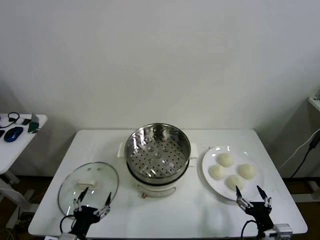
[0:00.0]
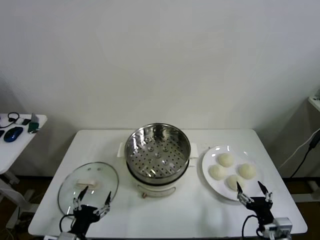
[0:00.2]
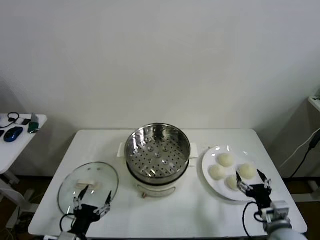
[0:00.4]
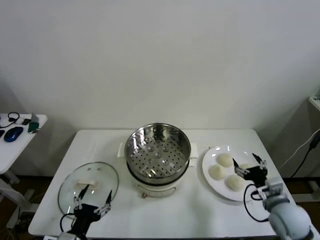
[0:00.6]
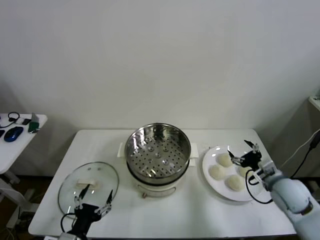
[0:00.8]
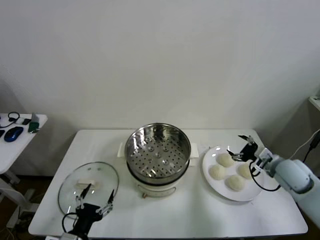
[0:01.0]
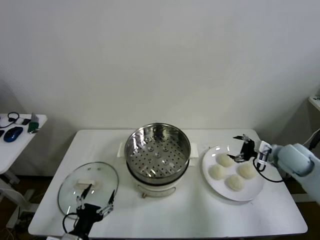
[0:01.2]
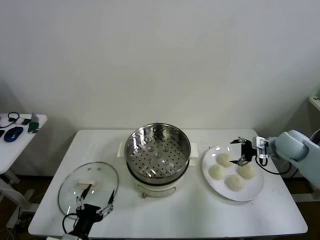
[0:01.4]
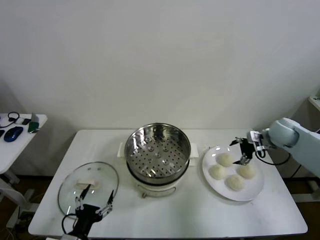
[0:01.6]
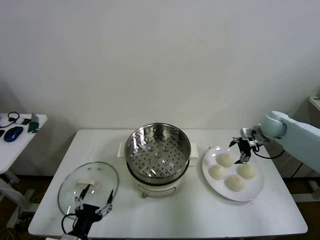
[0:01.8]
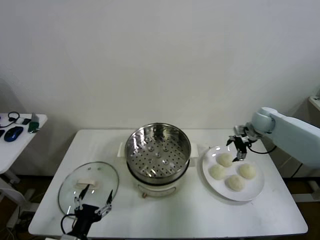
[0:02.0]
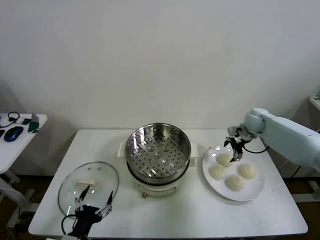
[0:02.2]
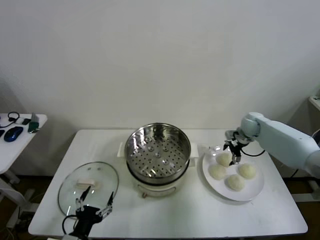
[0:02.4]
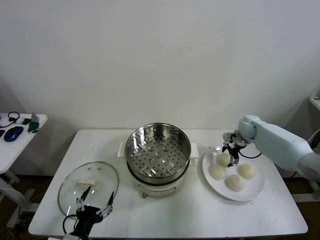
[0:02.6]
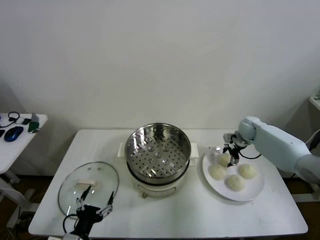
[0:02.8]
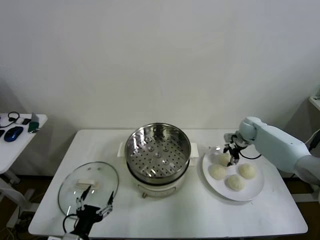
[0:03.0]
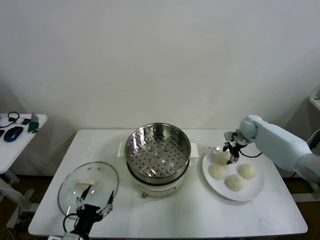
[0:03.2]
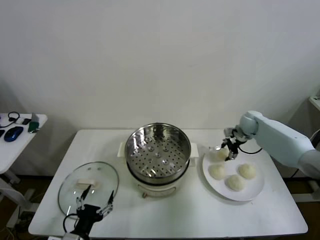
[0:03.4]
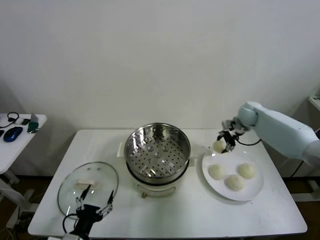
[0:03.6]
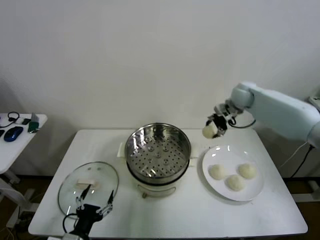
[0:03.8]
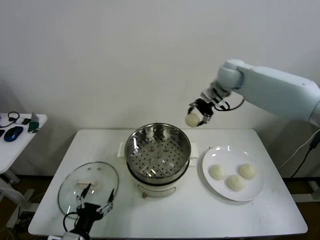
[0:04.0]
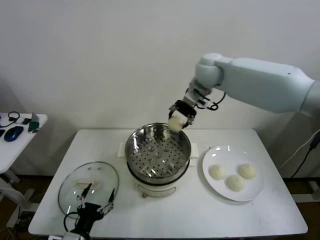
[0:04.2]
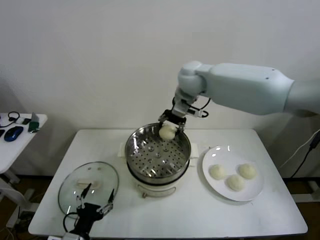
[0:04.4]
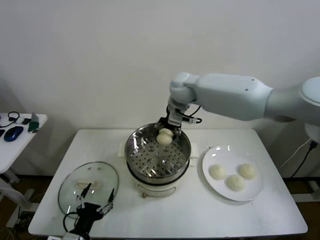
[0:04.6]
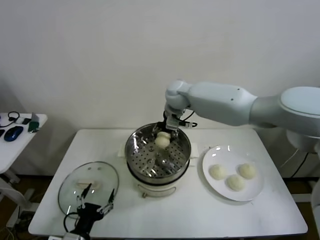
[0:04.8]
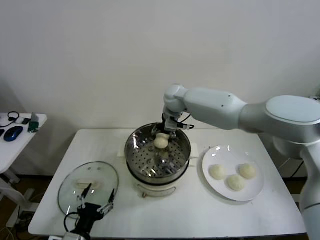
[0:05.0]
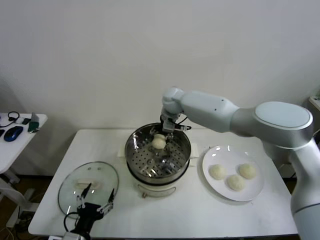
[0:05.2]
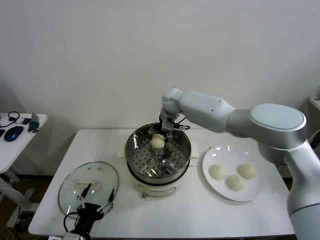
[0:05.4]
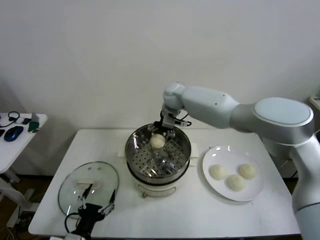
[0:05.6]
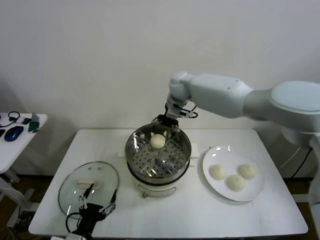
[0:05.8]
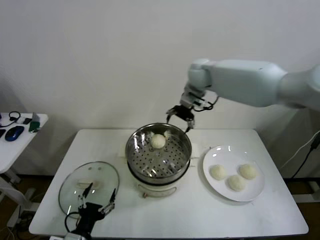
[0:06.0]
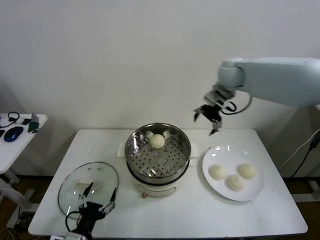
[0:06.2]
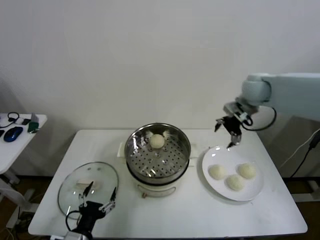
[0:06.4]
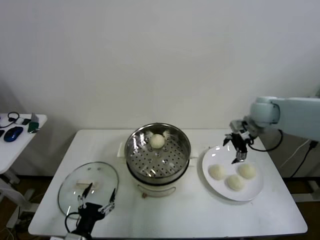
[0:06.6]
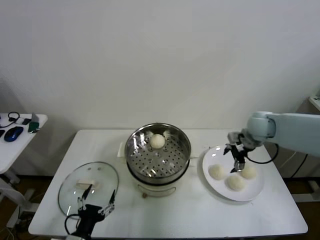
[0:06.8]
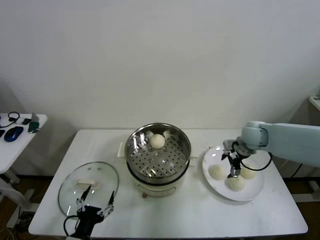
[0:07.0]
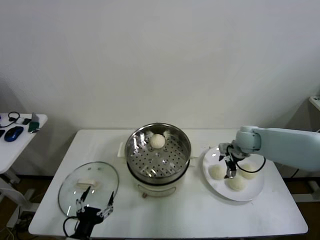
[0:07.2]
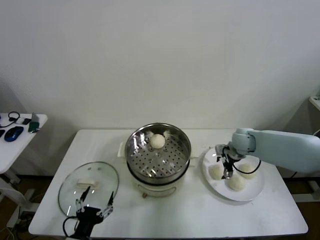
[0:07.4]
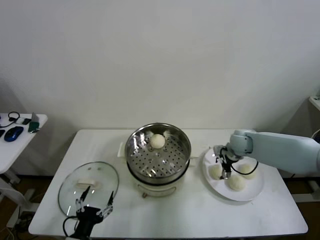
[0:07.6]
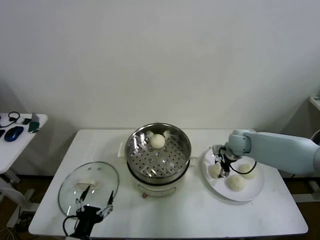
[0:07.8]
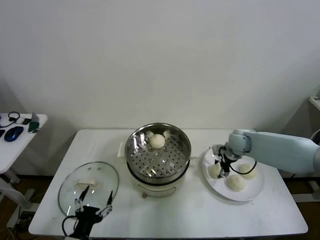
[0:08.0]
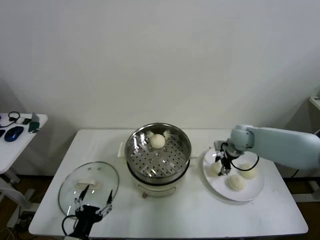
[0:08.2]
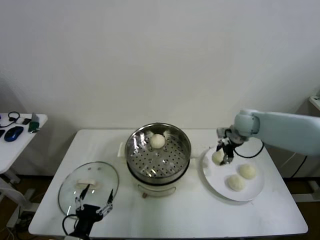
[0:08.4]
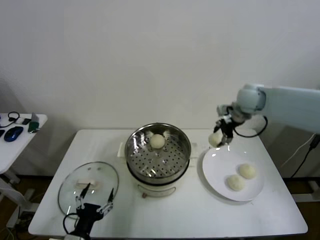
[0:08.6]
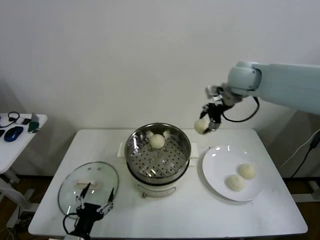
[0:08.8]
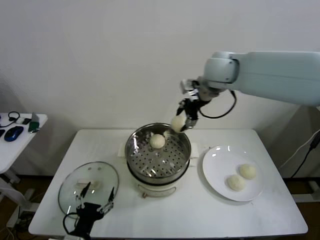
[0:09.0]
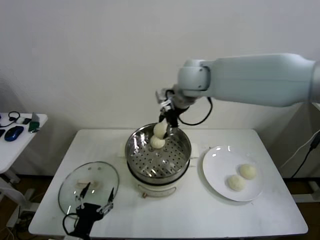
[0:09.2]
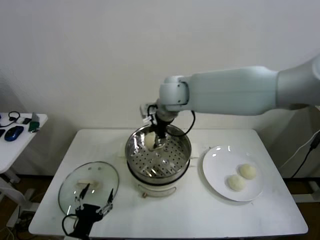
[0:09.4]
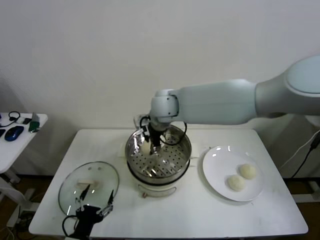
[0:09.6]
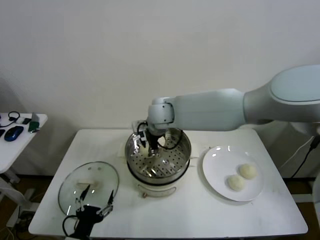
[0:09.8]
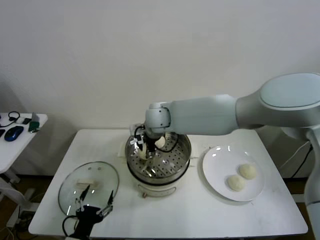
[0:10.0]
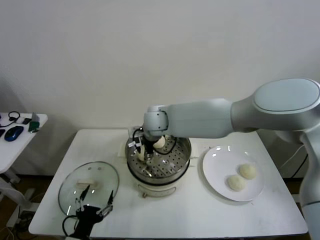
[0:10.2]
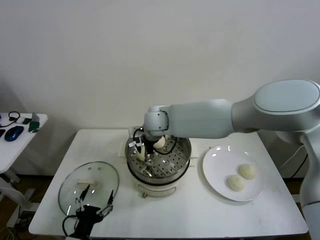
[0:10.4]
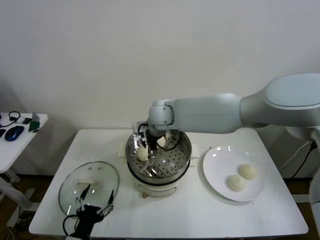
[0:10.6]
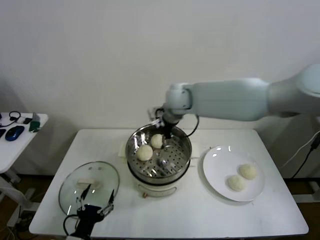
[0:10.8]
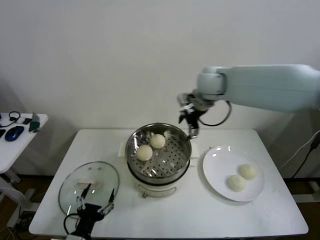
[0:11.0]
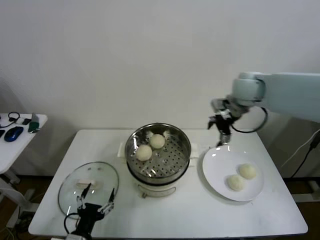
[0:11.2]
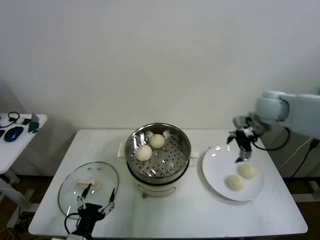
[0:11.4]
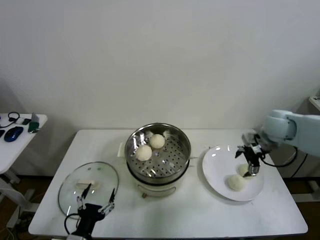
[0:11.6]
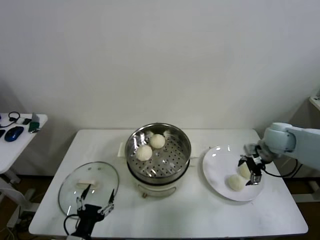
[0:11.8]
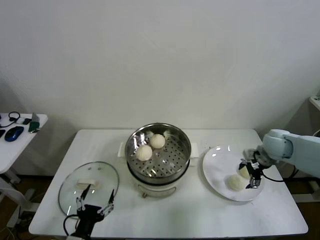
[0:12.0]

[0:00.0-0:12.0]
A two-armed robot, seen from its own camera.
Step, 0:00.0 to 0:03.0: Grasp the baozi in the plate with right gripper.
Step, 0:03.2 to 0:05.4: Place the baozi on the steamer with right gripper.
Step, 0:05.6 to 0:07.8: Grasp the baozi in the plate with right gripper.
Step, 0:08.2 to 0:10.4: Place the baozi on the steamer with right gripper.
0:01.6 to 0:03.0: The right gripper moves downward and forward, some 10 cm, and closes its fingers.
0:03.0 to 0:04.4: The right gripper moves to the left and upward, roughly 40 cm.
0:04.4 to 0:06.0: The right gripper is displaced to the right by some 10 cm, and opens up.
0:06.0 to 0:07.6: The right gripper shifts approximately 30 cm downward and to the right.
0:07.6 to 0:09.0: The right gripper moves upward and to the left, approximately 35 cm, and closes up.
0:09.0 to 0:10.4: The right gripper travels downward and to the left by roughly 20 cm, and opens.
0:10.4 to 0:12.0: The right gripper heads to the right, covering roughly 40 cm.

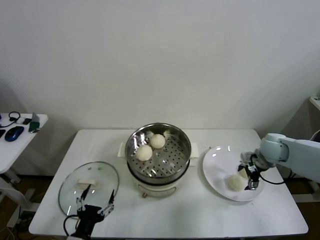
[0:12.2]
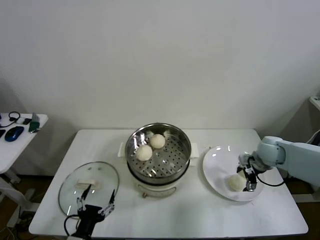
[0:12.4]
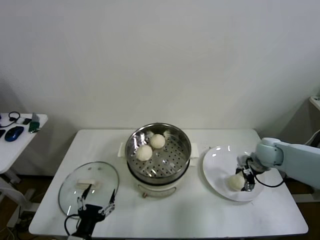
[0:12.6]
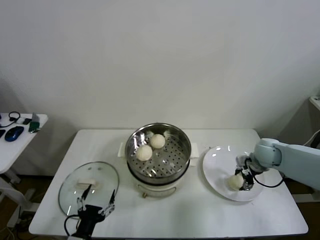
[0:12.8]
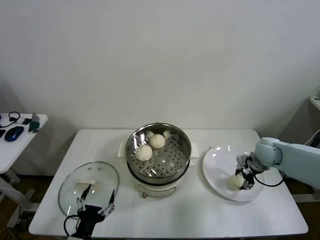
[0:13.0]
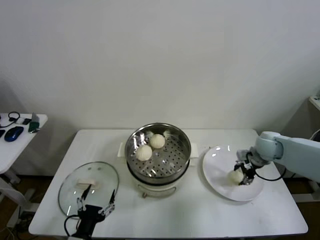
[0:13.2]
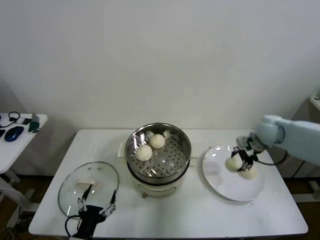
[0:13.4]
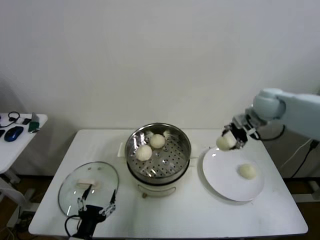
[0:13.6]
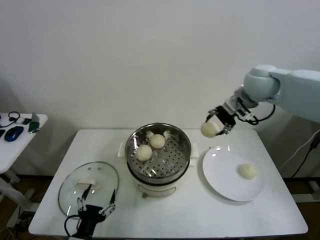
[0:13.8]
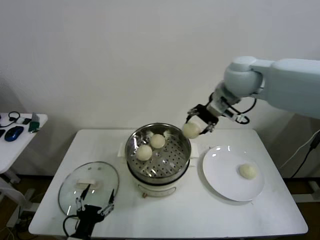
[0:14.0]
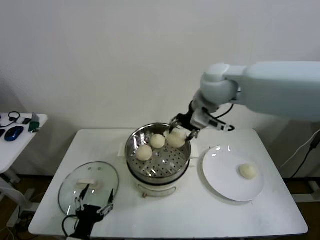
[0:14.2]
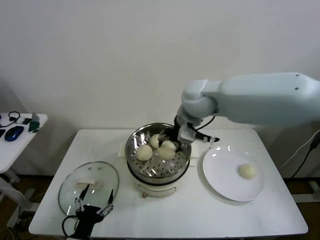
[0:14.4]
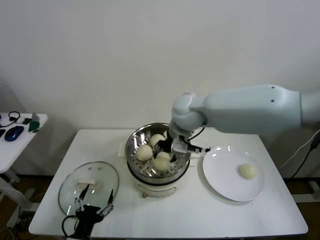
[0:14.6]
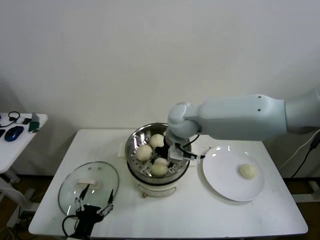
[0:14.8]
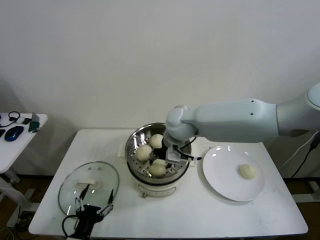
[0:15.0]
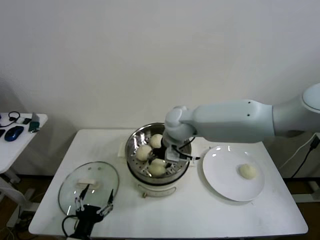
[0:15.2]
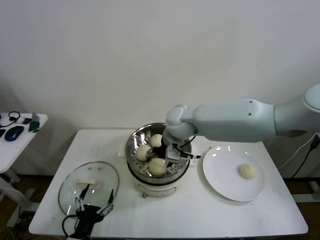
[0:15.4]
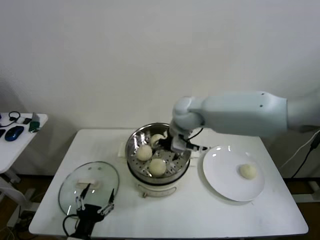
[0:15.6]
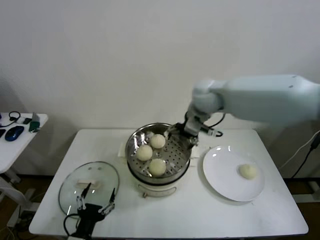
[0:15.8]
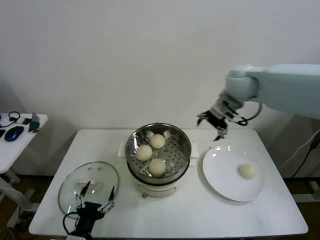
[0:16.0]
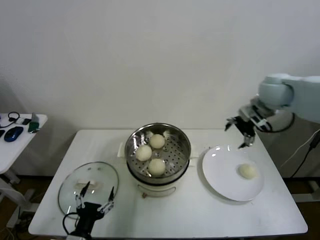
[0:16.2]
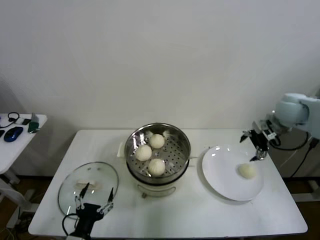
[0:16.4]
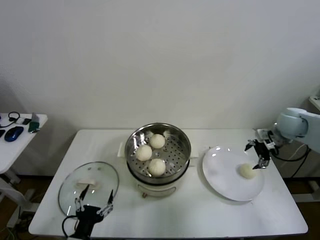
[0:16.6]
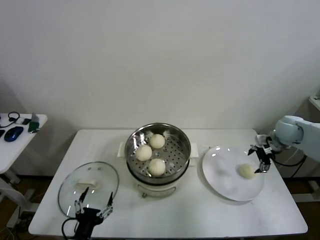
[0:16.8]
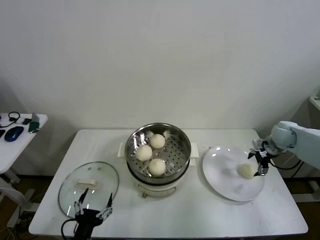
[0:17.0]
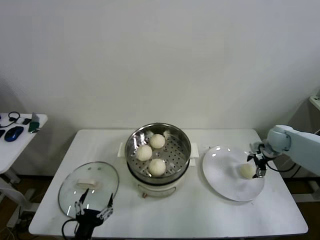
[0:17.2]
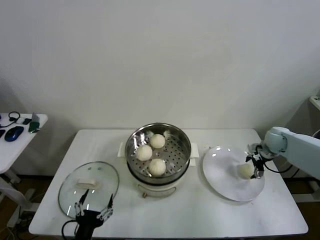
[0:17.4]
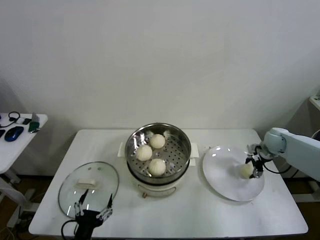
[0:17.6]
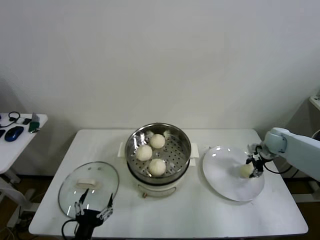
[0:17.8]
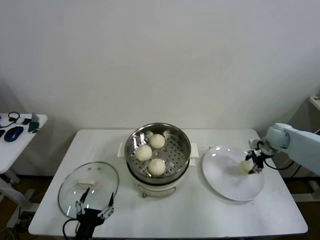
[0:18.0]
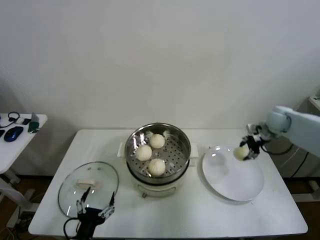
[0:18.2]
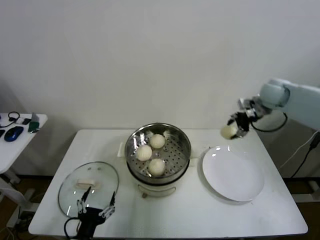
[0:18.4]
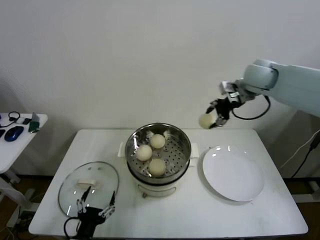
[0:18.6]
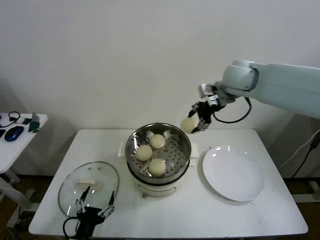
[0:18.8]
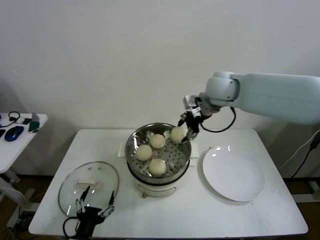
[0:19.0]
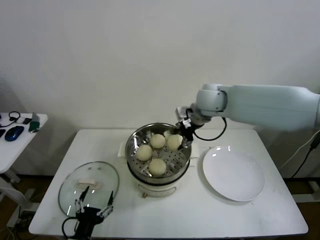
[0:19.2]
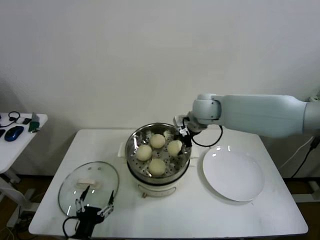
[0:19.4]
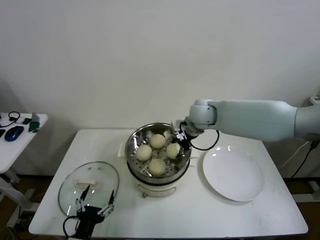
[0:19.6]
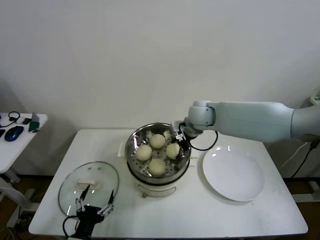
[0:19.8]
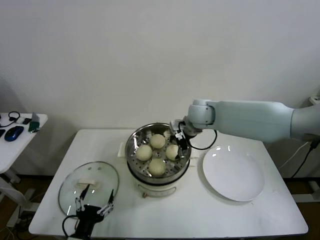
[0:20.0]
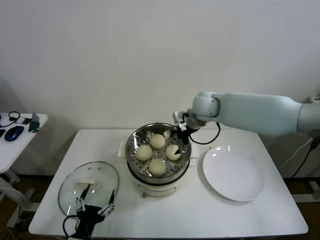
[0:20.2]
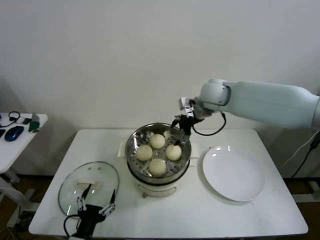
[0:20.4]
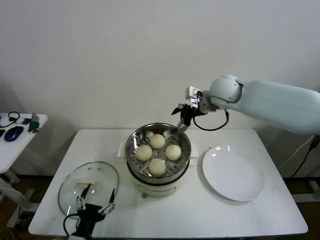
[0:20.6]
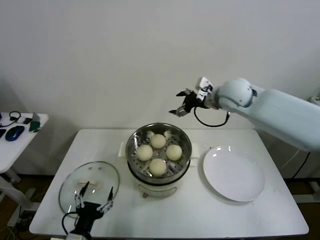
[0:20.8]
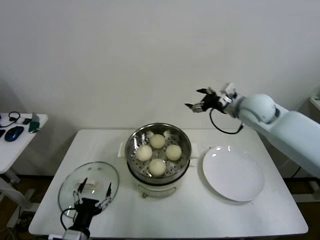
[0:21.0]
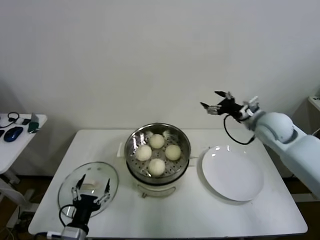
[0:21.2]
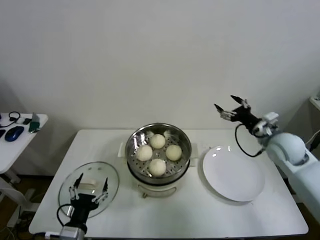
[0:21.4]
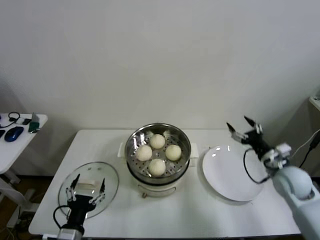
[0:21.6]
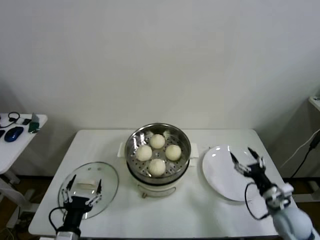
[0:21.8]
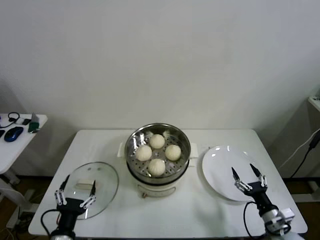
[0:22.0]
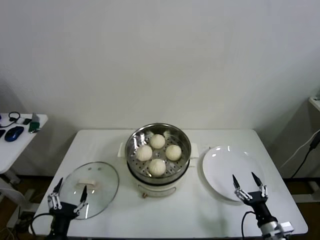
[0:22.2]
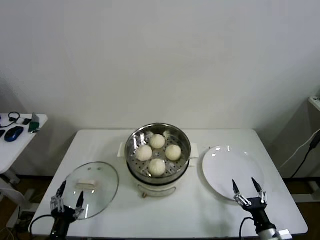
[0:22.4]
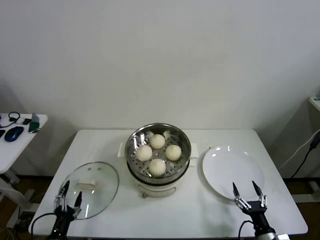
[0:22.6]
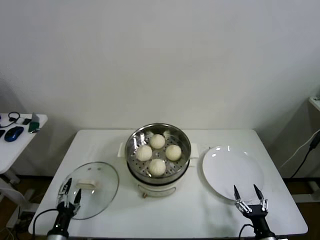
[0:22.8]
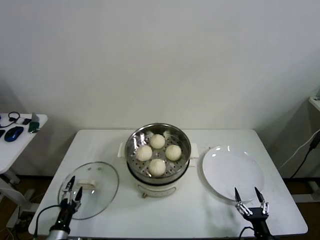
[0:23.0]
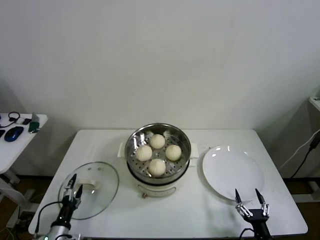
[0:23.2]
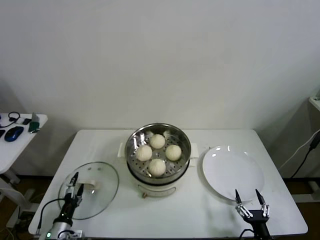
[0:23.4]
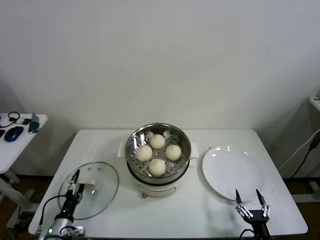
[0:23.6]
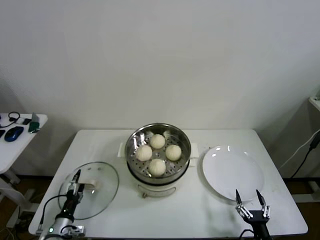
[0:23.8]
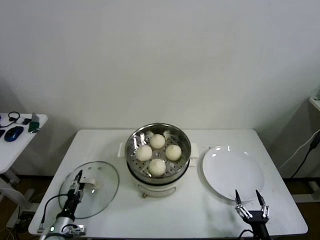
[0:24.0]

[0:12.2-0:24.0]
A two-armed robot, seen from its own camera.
Step, 0:13.0 to 0:15.2: Place the baozi on the steamer with right gripper.
Step, 0:15.4 to 0:17.6: Grasp the baozi in the plate with right gripper.
Step, 0:17.8 to 0:19.8: Place the baozi on the steamer with right gripper.
0:12.2 to 0:13.6: The right gripper travels upward by about 15 cm, and closes its fingers.
0:13.6 to 0:15.2: The right gripper goes roughly 25 cm to the left.
0:15.2 to 0:16.6: The right gripper goes some 40 cm to the right, and opens up.
0:16.6 to 0:18.2: The right gripper goes roughly 5 cm forward, goes downward and returns, some 10 cm each way, and closes.
0:18.2 to 0:19.6: The right gripper travels to the left by approximately 30 cm.
0:19.6 to 0:21.0: The right gripper shifts some 15 cm to the right, and opens.
0:21.0 to 0:22.6: The left gripper heads to the left and downward, covering approximately 10 cm. The right gripper heads downward and backward, covering some 50 cm.
0:22.6 to 0:24.0: The left gripper moves forward and downward, roughly 10 cm.
